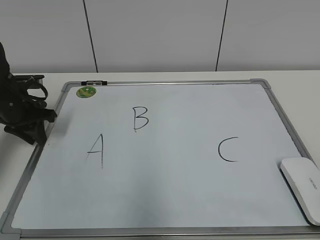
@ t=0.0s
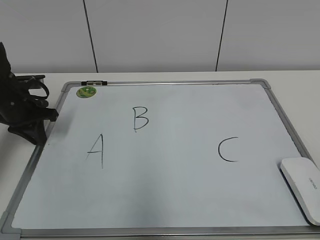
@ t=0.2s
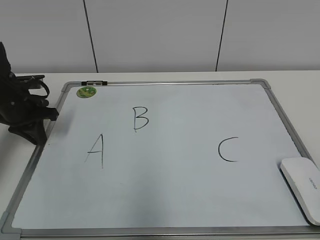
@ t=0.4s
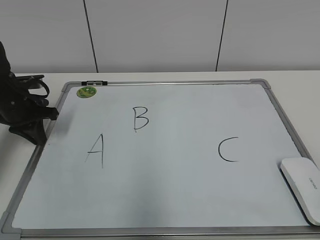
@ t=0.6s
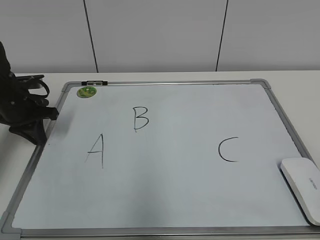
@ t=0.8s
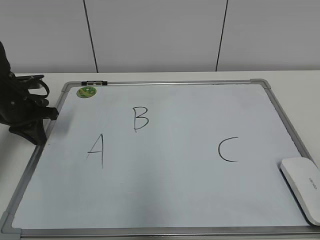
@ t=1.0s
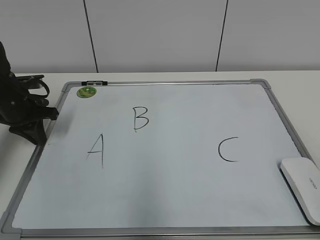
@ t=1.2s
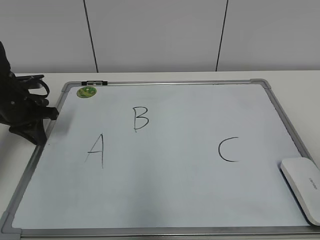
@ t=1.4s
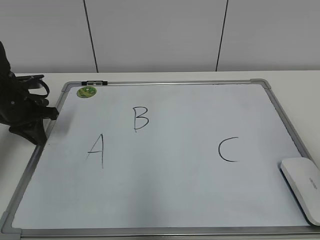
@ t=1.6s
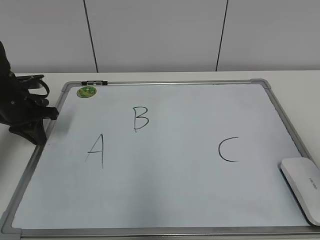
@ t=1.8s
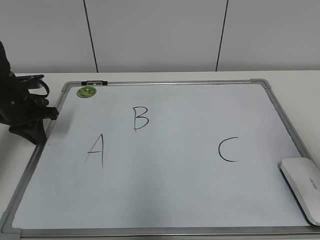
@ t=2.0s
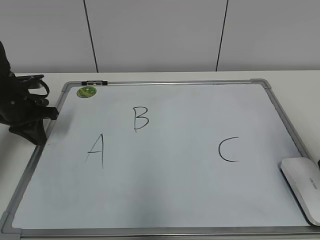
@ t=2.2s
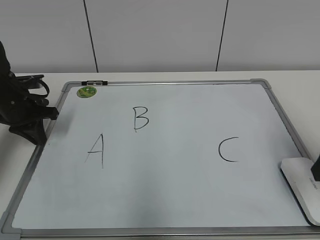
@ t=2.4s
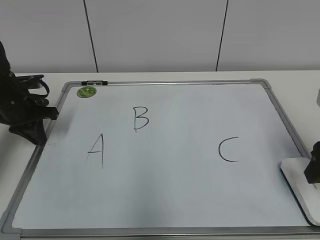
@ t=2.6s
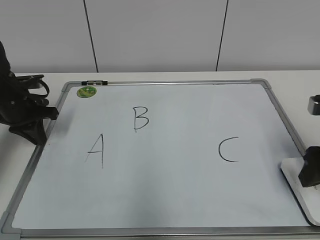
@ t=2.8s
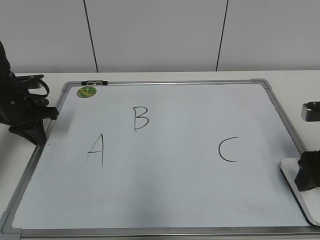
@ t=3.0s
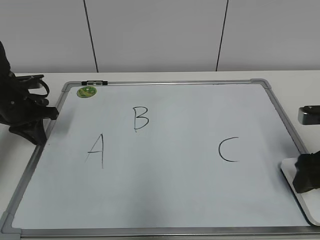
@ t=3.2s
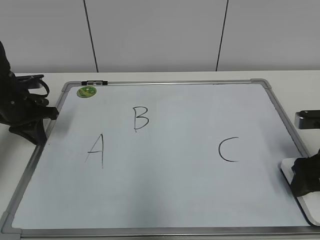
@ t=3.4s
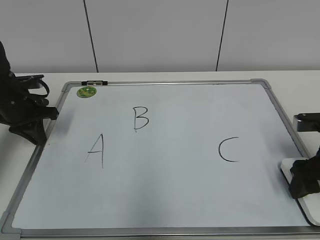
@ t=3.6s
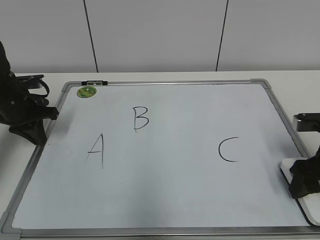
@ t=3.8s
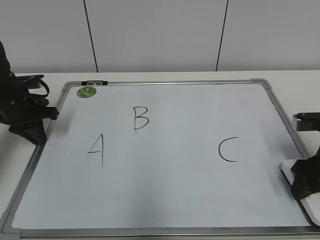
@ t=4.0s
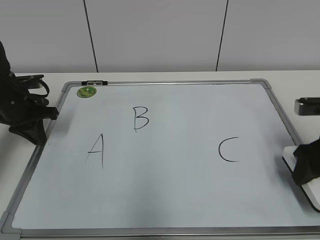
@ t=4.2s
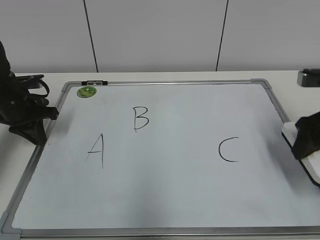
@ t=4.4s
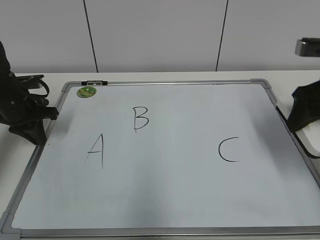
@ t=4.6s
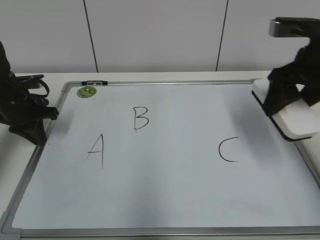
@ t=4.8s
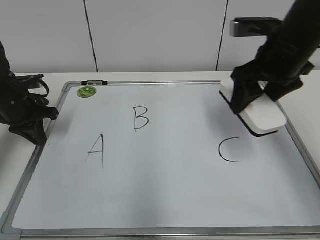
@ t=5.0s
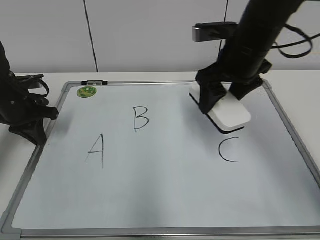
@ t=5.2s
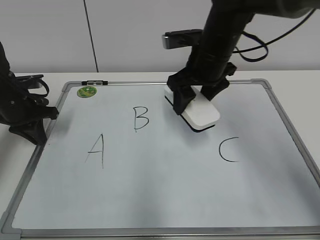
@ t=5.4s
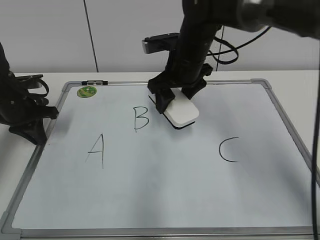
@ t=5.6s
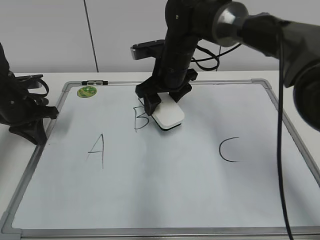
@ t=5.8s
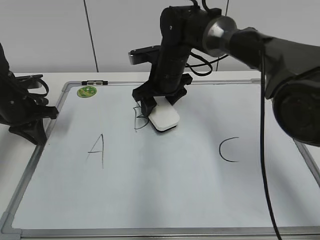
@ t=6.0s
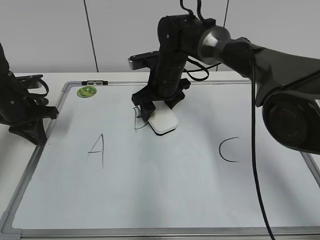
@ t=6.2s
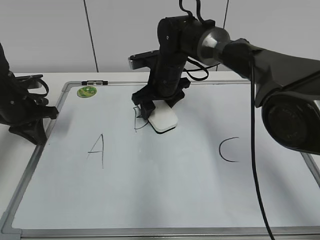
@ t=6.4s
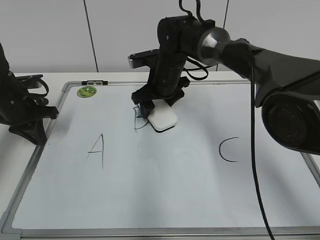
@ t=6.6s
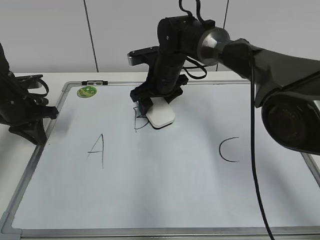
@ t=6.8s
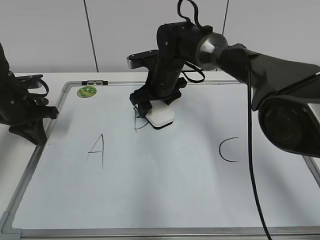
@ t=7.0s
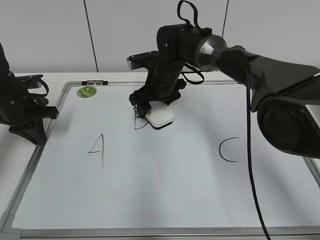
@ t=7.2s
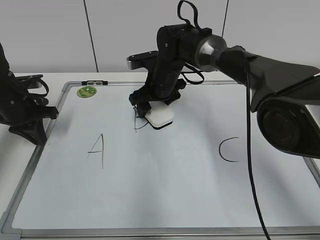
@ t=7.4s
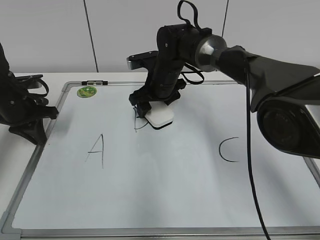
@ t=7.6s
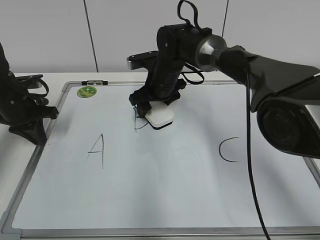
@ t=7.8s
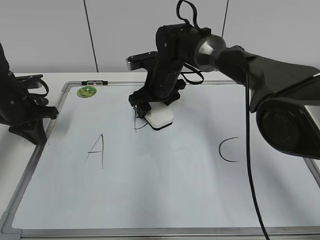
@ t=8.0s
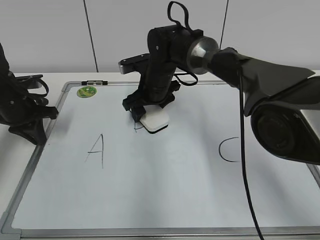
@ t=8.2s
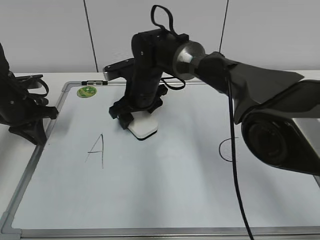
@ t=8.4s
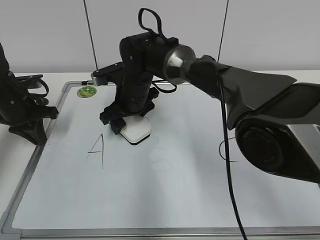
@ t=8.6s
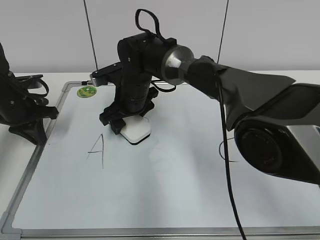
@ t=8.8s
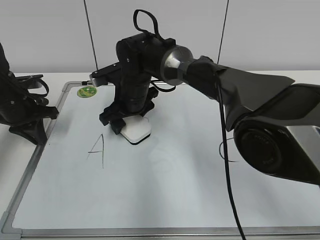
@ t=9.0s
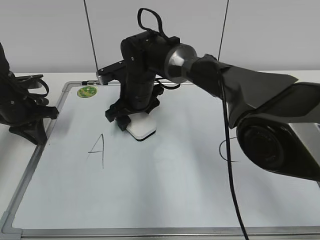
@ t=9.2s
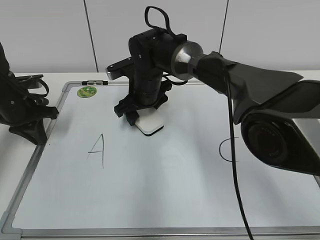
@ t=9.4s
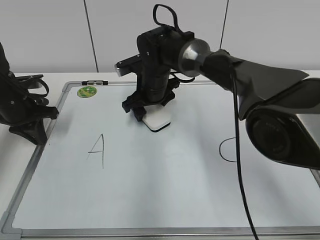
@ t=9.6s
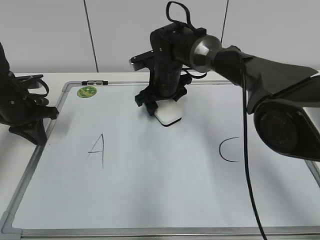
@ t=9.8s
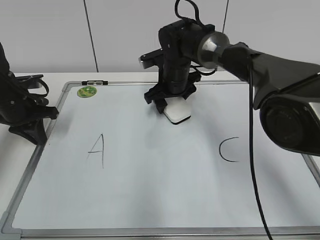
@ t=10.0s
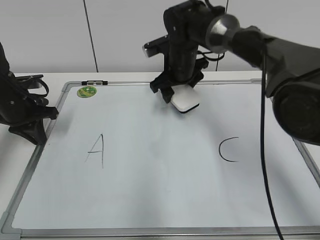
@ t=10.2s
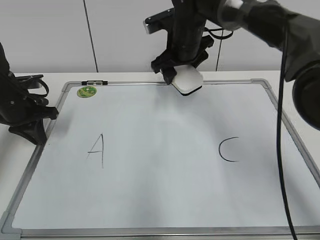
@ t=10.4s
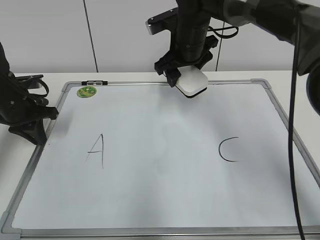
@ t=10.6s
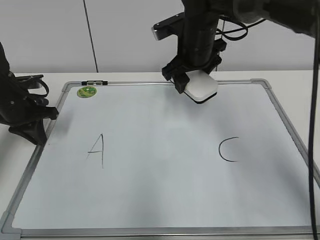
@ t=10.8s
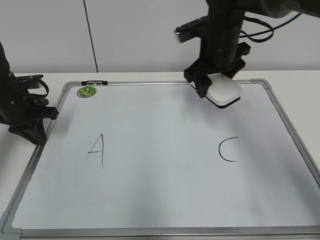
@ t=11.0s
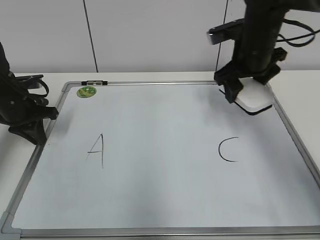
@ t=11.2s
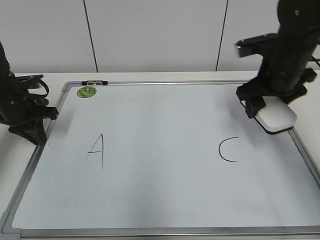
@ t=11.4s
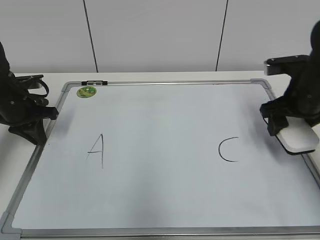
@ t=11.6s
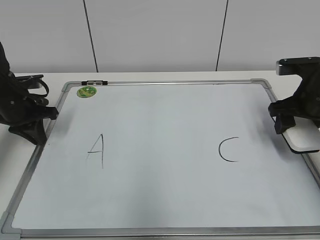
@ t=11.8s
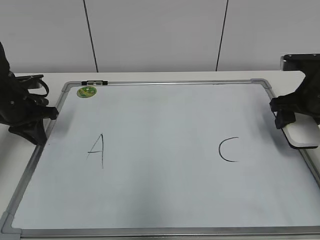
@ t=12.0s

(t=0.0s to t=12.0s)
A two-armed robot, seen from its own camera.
Task of the whole recording: pick up the eraser on the blackboard and erase the letter "B".
Step, t=4.0s - t=9.4s: Erase the letter B with your right hand.
t=1.6s - t=3.0s: The right gripper is displaced forward and downward by roughly 20 cm.
t=3.0s - t=4.4s: The right gripper changes place by roughly 5 cm, and closes its fingers.
t=4.4s - t=6.0s: The right gripper is displaced to the left and forward by some 30 cm.
t=6.0s - t=7.6s: The grippers stay close to where they were, moving slightly.
t=7.6s - t=9.0s: The right gripper moves to the left, approximately 5 cm.
t=9.0s - t=10.4s: The right gripper shifts about 15 cm to the right and upward.
t=10.4s - t=12.0s: The right gripper goes approximately 25 cm to the right and backward.

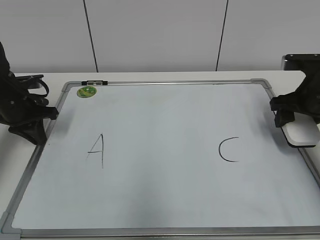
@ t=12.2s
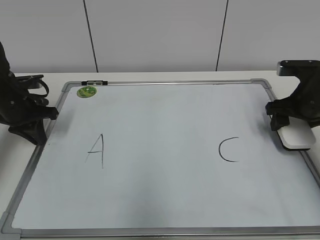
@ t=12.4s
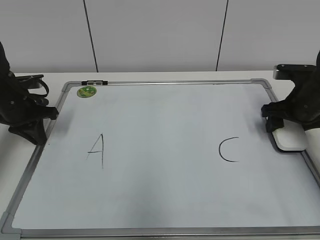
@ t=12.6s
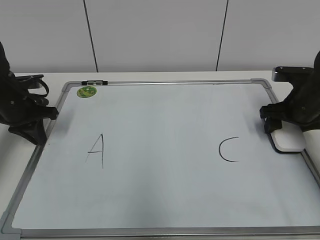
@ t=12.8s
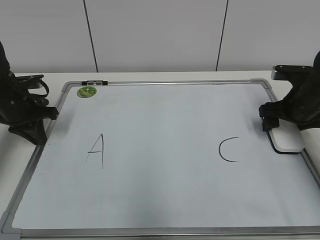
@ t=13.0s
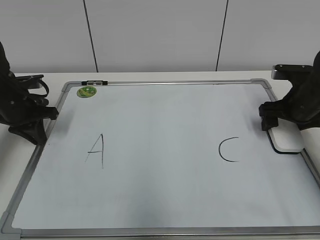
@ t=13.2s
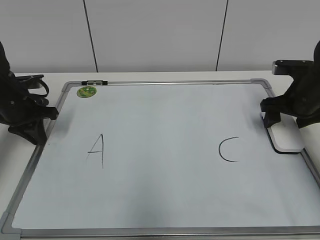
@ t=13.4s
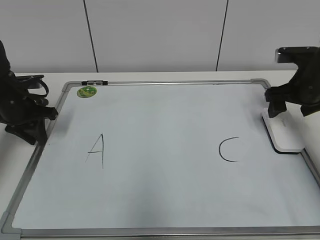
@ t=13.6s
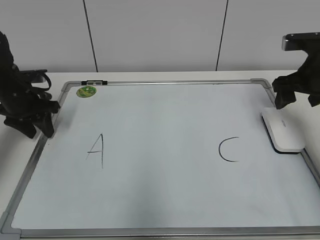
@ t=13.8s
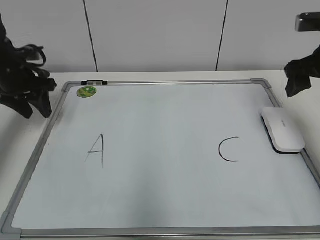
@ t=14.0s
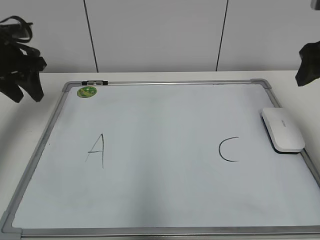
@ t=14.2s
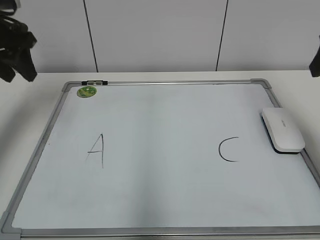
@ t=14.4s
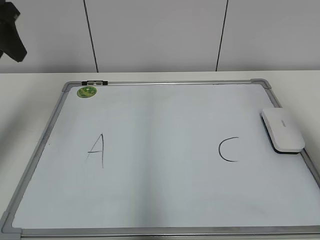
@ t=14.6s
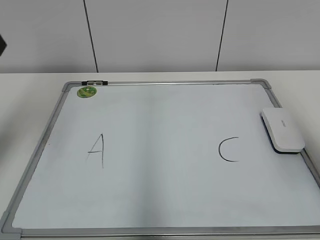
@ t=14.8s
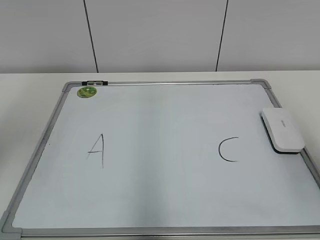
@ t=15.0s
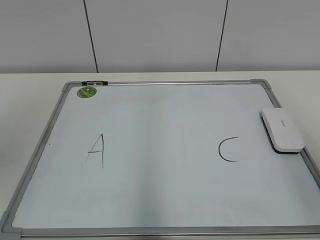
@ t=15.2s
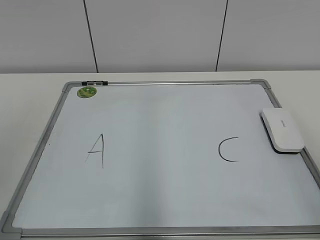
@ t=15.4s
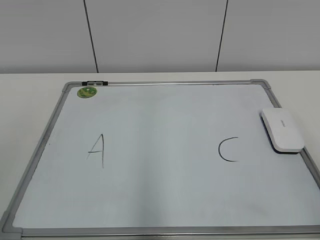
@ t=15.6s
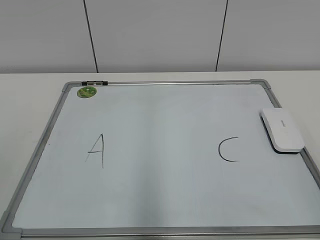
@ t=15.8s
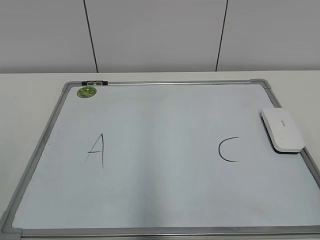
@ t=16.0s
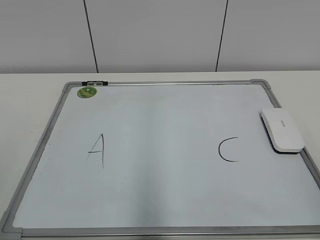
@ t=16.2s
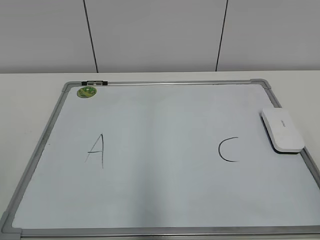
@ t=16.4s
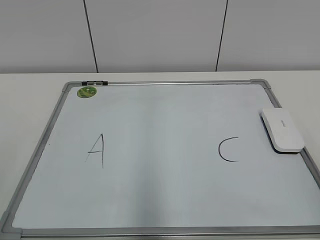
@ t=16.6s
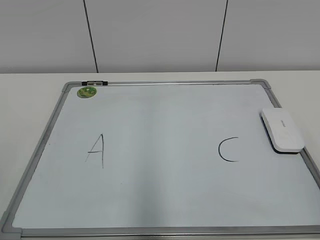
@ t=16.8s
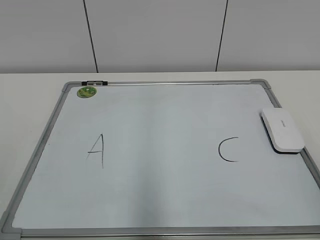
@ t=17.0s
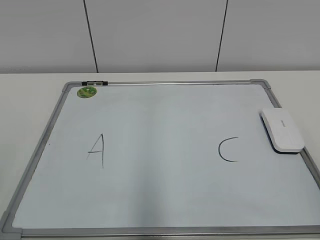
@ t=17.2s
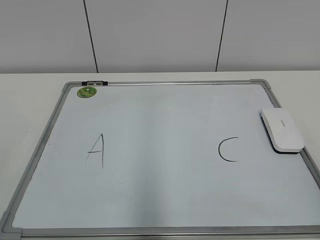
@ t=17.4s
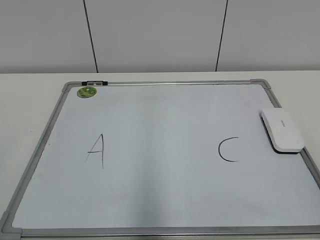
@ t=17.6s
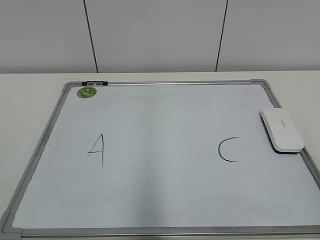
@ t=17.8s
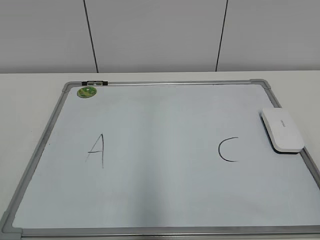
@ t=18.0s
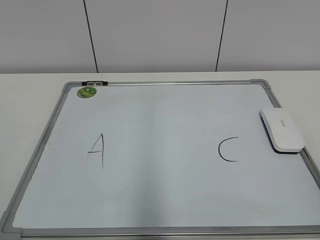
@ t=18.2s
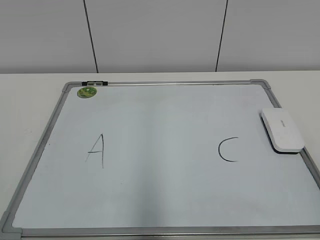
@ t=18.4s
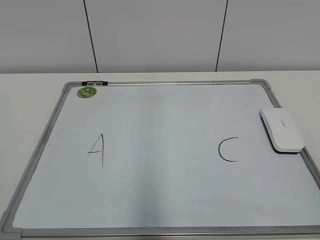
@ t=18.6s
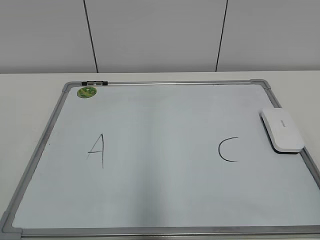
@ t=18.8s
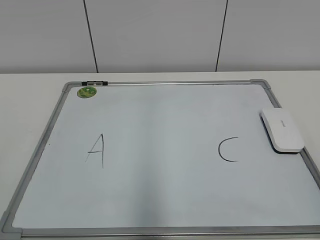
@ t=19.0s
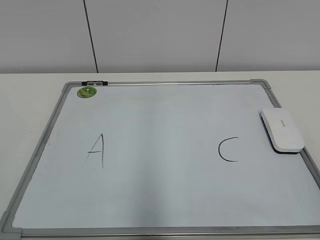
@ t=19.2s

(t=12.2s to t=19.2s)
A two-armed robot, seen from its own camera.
Task of the whole recording: pick up the eraser on the blackboard and erase the letter "B".
t=12.2s - t=13.6s: The right gripper opens its fingers.
t=13.6s - t=15.0s: The left gripper travels upward and backward by some 30 cm, and opens, while the right gripper goes about 30 cm backward and upward, and closes.
t=17.8s - t=19.2s: Both grippers stay put.
